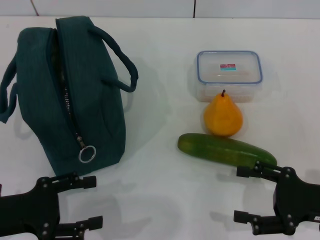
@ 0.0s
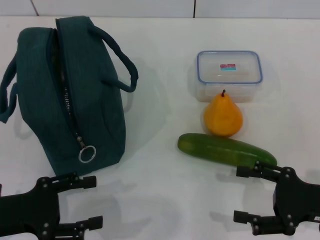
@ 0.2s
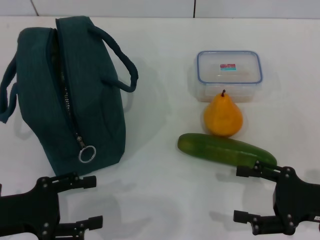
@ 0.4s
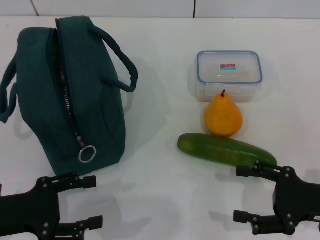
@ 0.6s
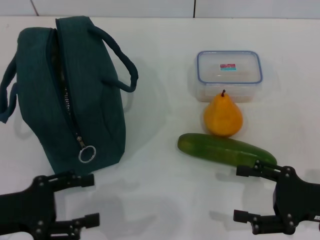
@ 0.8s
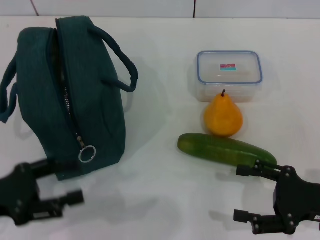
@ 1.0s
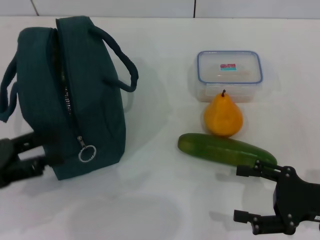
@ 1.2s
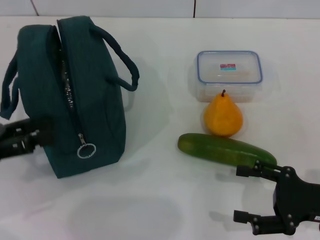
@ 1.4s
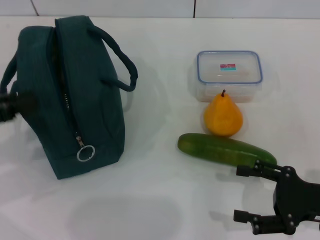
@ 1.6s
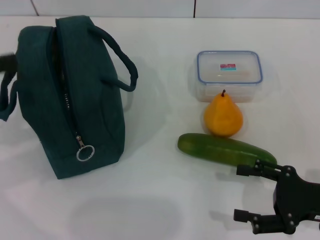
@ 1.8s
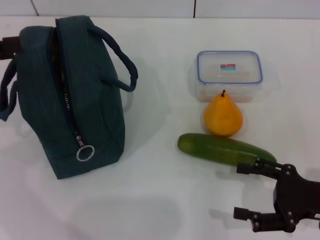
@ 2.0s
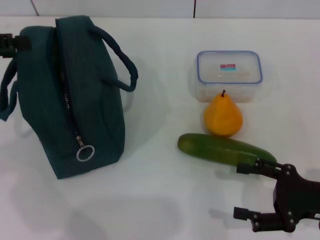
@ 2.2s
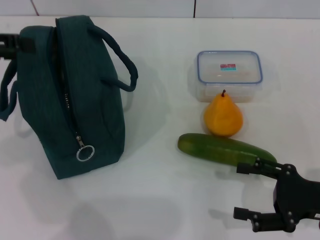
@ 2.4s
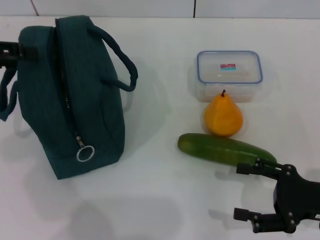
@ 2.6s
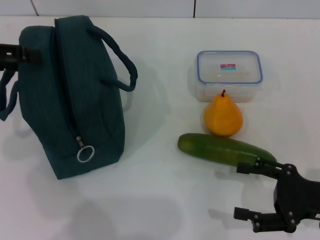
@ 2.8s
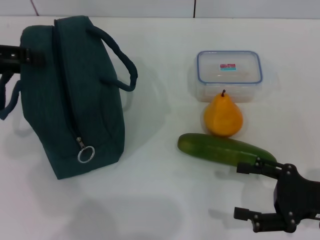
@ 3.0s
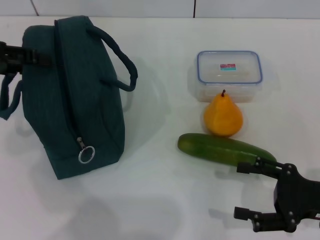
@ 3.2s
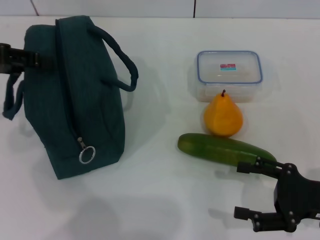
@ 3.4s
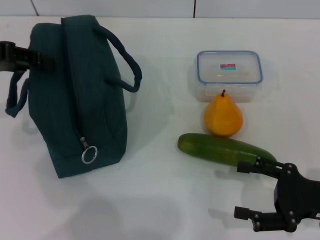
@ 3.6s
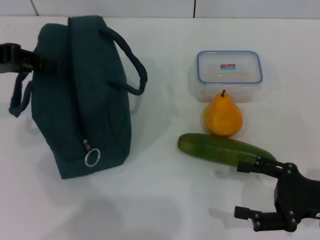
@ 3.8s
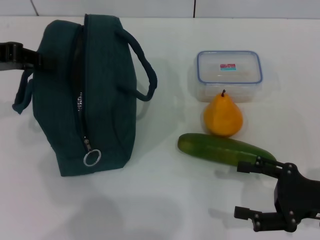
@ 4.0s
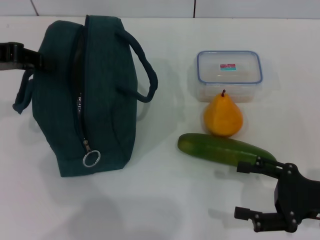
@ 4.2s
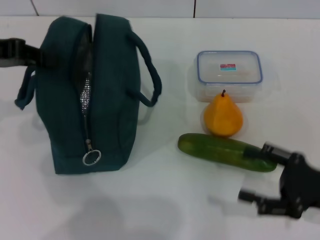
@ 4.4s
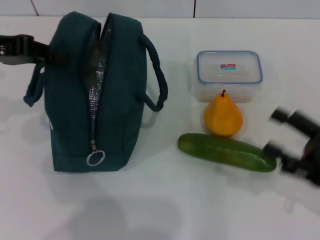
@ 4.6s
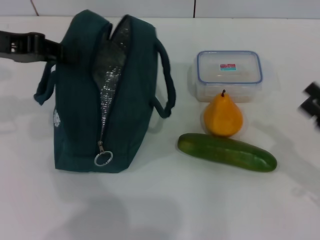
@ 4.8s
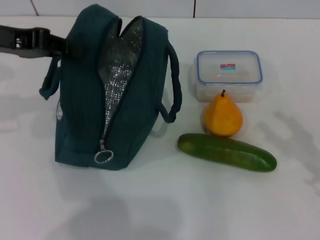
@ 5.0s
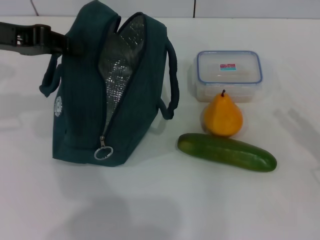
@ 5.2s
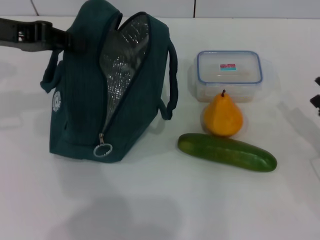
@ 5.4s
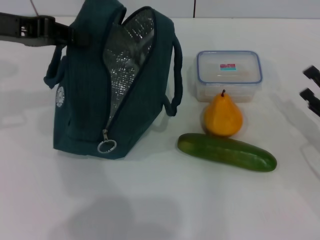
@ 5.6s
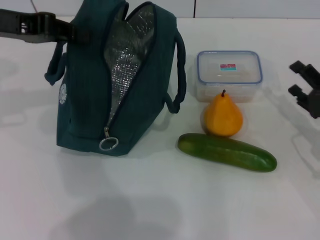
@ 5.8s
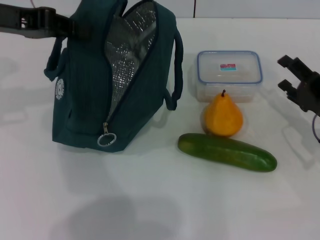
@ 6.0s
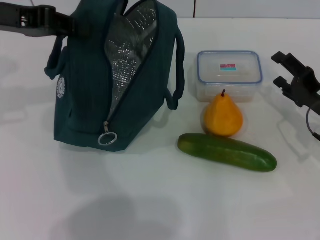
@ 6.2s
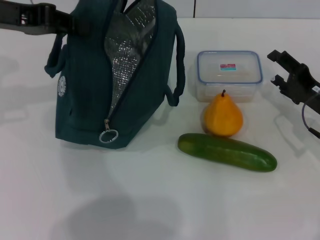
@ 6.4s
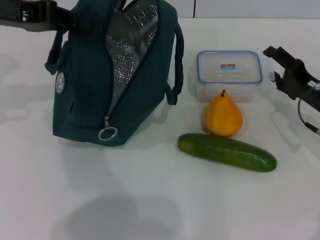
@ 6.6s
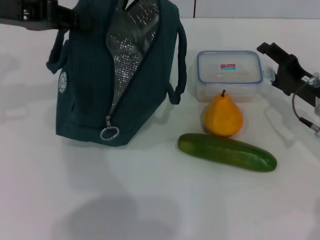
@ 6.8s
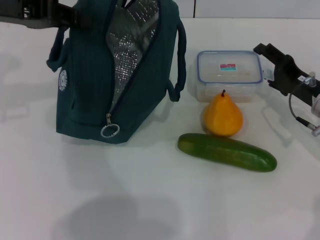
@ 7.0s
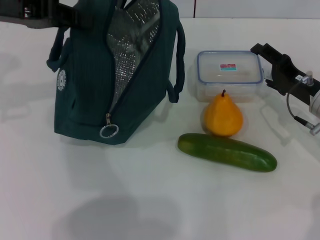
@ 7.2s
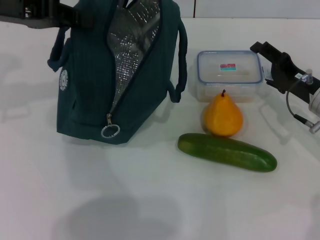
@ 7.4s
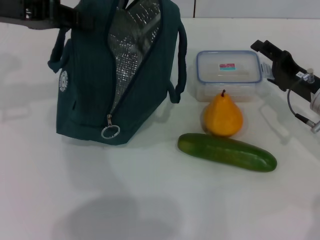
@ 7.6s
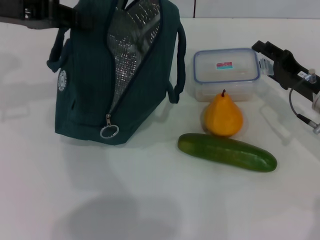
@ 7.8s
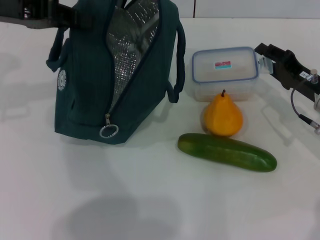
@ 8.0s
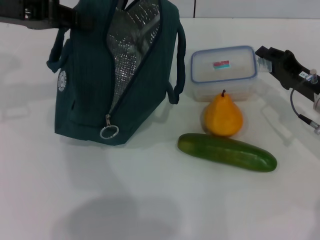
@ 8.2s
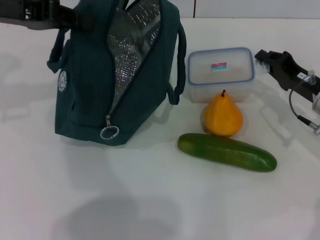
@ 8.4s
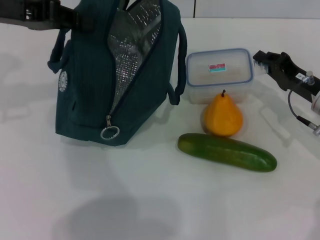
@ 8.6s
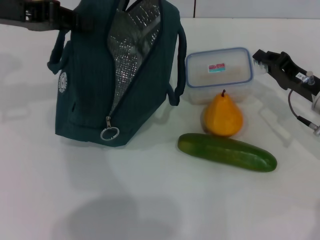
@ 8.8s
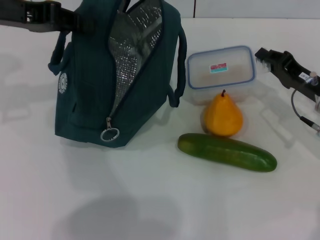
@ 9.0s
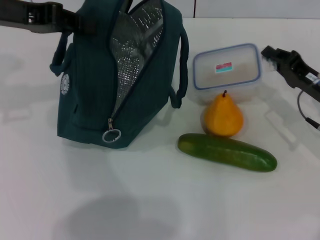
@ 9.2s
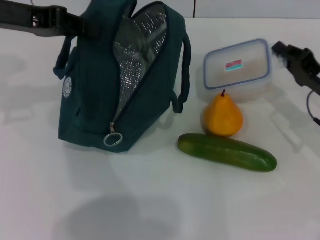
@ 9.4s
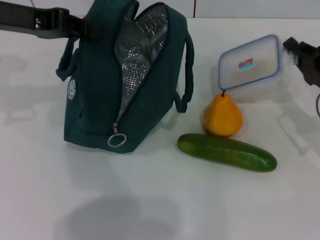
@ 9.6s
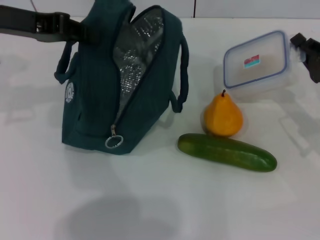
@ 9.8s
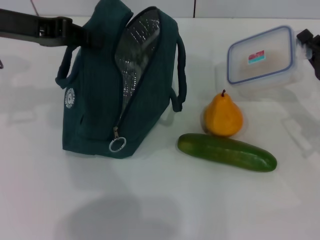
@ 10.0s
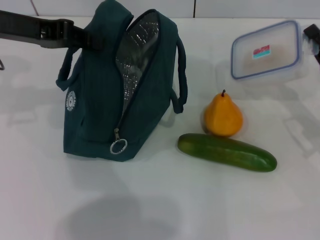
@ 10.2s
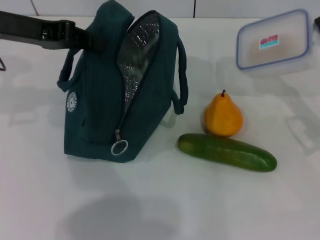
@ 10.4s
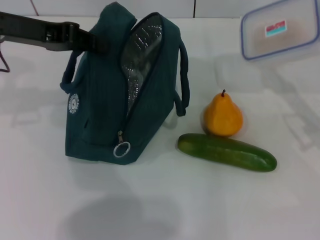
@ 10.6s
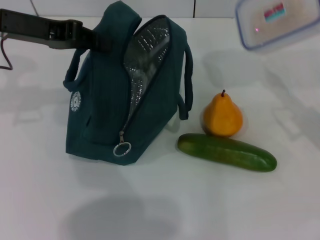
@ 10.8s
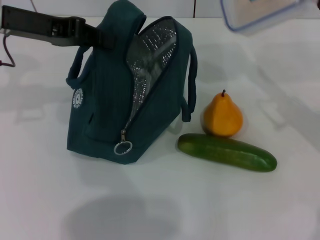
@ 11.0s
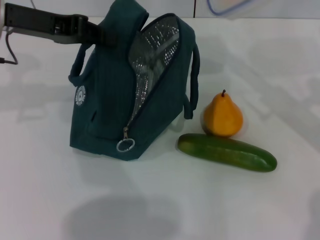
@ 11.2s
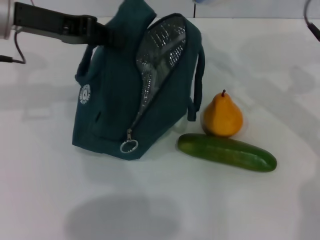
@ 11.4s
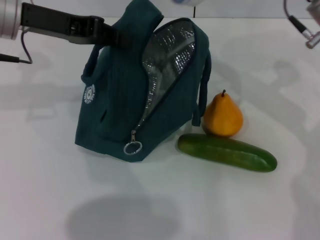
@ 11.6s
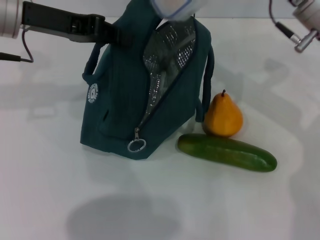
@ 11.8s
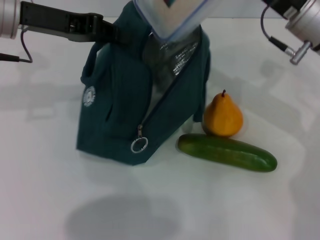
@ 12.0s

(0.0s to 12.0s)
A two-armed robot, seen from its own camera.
Step, 0.0s - 3.8s: Hold the lunch bag with your left hand.
Step, 4.0s - 8.6s: Pick up the lunch box with your right hand.
0.0s - 1.6s: The left gripper shifts roughly 15 cm upward, to the left and forward.
1.6s - 3.0s: The left gripper travels forward and upward by roughly 10 cm.
3.0s - 4.4s: The left gripper closes.
4.4s - 6.0s: The right gripper travels forward by approximately 10 cm.
6.0s - 7.6s: The right gripper moves about 5 cm.
7.6s - 9.0s: The right gripper closes.
9.0s - 10.4s: The right gripper ends up about 5 cm from where it was.
10.4s - 12.0s: The right gripper travels to the left, upward and forward by roughly 15 cm.

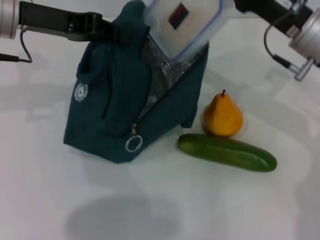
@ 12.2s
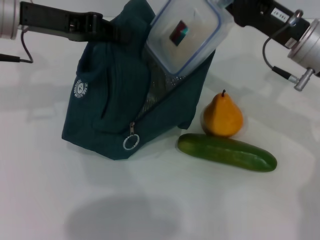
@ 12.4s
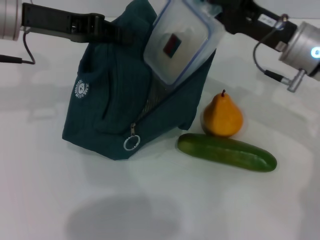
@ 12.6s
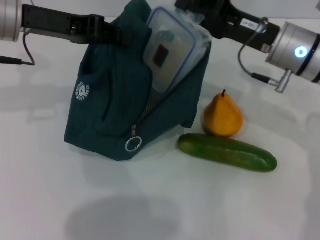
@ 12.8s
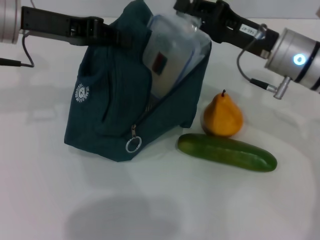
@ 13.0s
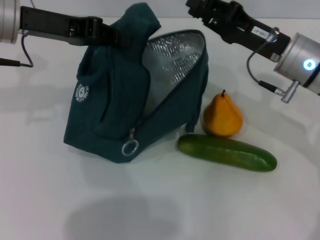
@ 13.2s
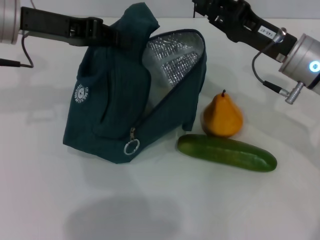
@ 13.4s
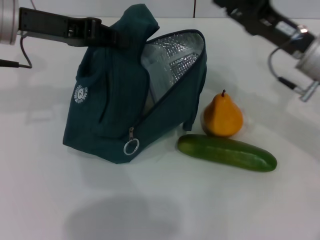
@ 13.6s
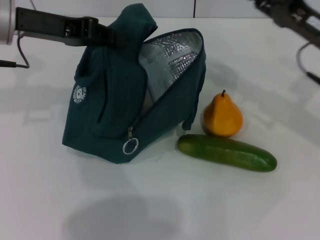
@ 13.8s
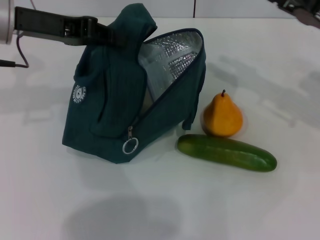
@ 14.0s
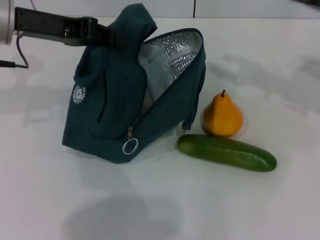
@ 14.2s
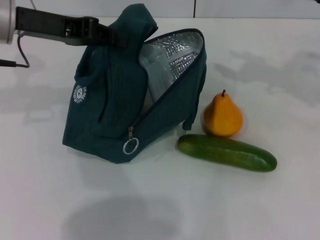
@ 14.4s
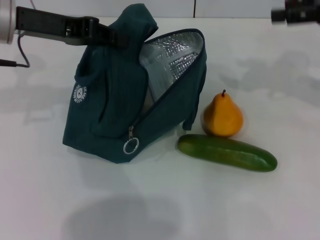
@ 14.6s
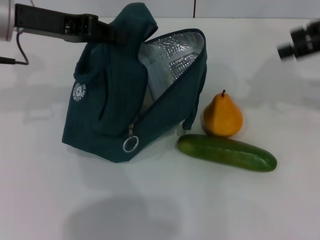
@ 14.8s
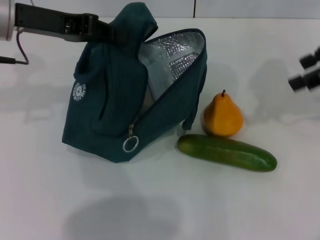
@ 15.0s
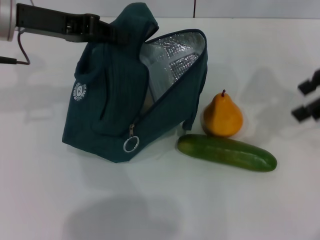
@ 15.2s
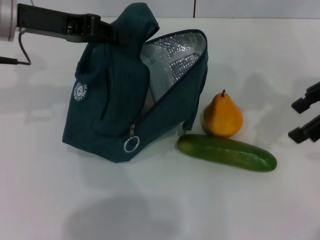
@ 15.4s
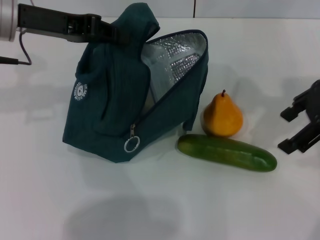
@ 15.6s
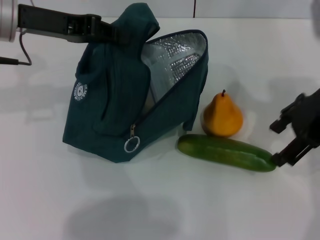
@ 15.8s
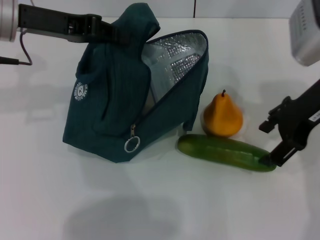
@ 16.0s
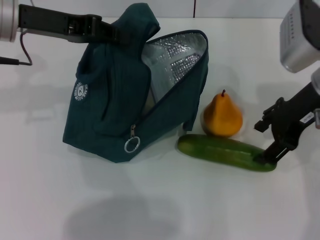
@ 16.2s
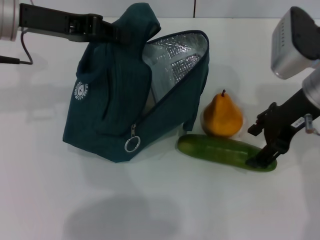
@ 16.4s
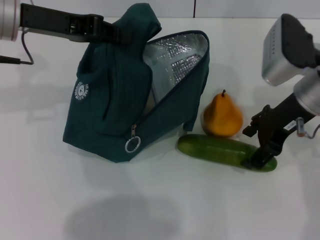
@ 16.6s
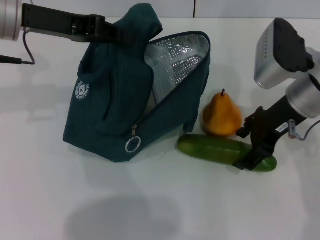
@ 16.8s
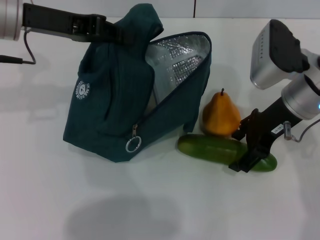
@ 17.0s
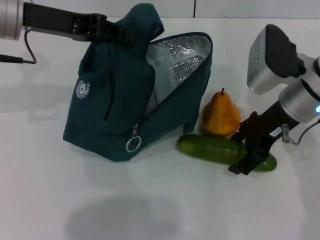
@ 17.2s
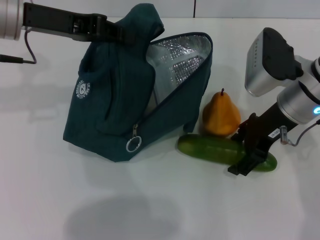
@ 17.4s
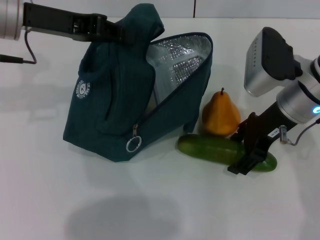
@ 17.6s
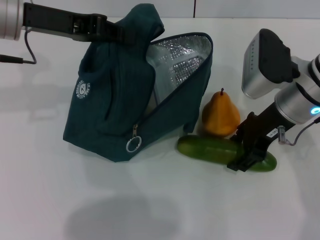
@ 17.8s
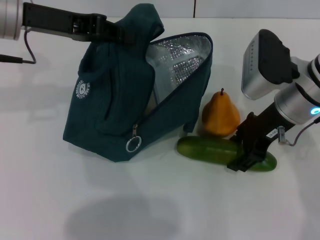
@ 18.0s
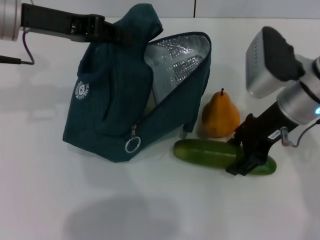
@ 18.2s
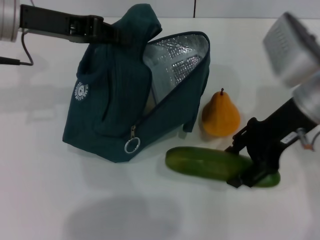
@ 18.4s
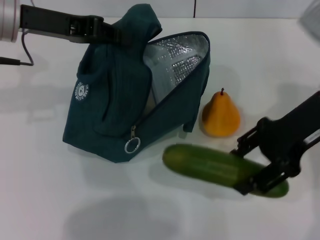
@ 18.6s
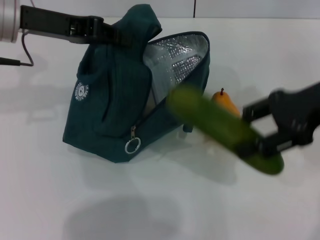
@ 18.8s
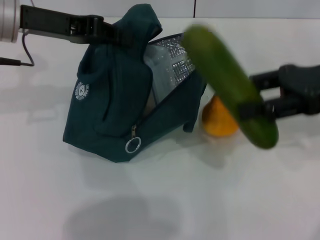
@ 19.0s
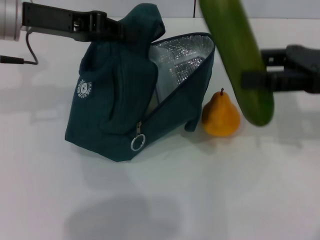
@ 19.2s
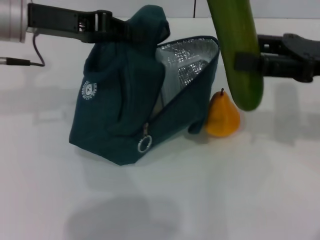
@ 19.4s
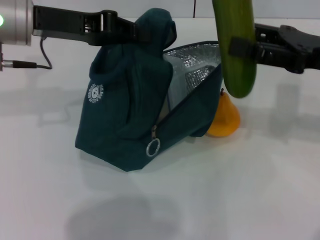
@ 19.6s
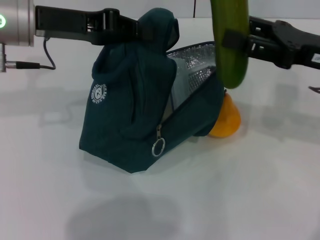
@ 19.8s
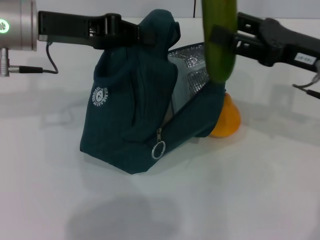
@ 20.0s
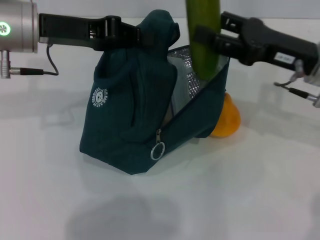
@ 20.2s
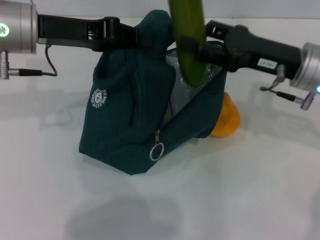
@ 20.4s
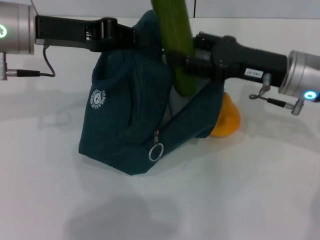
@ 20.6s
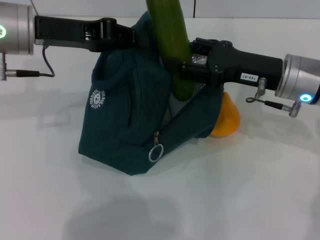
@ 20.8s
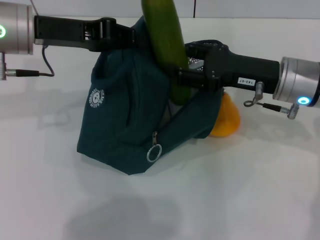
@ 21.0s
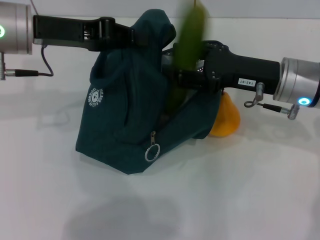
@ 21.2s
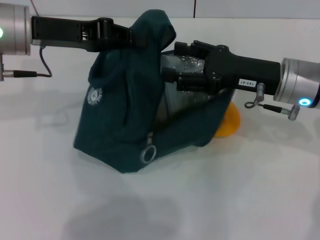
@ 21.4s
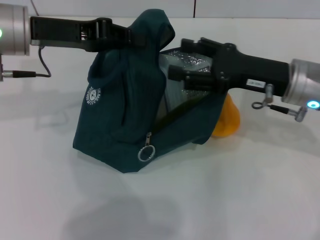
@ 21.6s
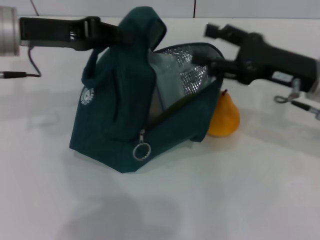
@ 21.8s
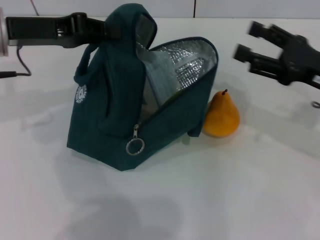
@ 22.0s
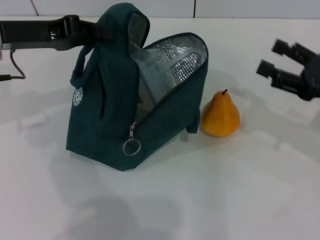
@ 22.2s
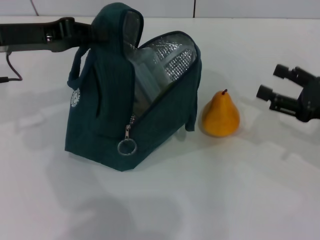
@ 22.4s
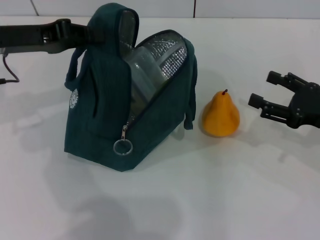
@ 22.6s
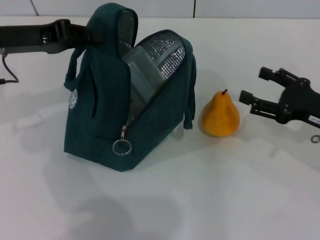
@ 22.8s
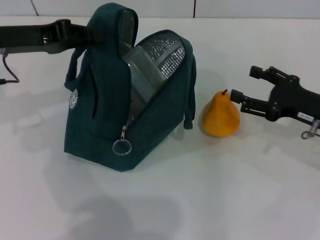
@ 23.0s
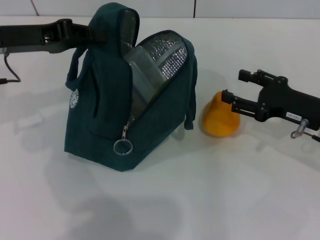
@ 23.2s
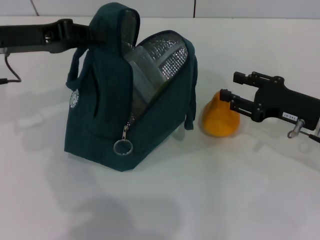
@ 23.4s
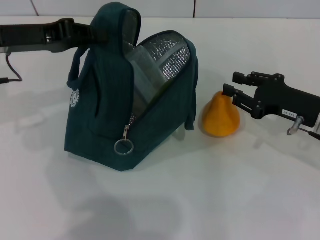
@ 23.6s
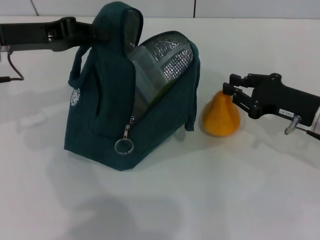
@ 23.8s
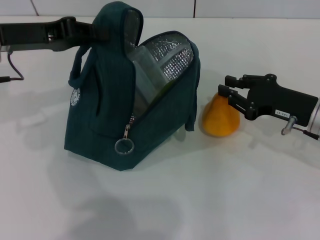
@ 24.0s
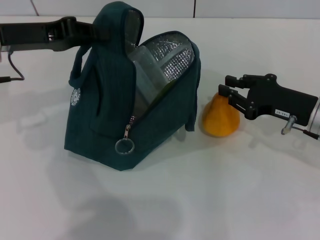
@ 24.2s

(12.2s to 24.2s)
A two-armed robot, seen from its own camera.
Step, 13.4s - 18.2s: Pick up the cucumber with your right hand.
Step, 18.4s - 21.4s: Put the cucumber into the lunch bag with your right hand.
12.2s - 13.8s: The right gripper shifts roughly 5 cm to the right.
13.8s - 15.2s: The right gripper shifts roughly 15 cm upward, and opens.
15.2s - 16.6s: The right gripper shifts roughly 15 cm downward and to the left.
16.6s - 18.2s: The grippers make only small movements.
18.2s - 19.8s: The right gripper is displaced to the right by some 10 cm.
19.8s - 21.2s: The right gripper heads to the left, covering roughly 5 cm.
21.2s - 22.6s: The left gripper goes some 5 cm to the left. Meanwhile the right gripper travels to the right and backward by some 15 cm.
22.6s - 24.2s: The right gripper travels to the left by about 5 cm, and closes.
